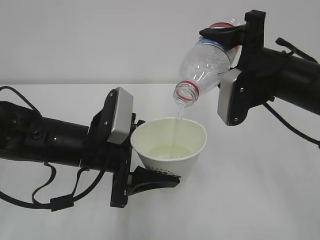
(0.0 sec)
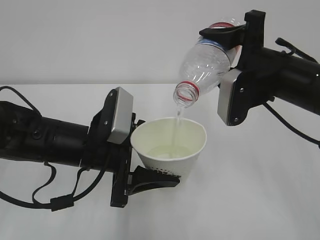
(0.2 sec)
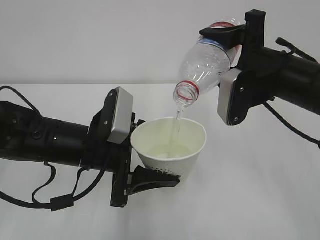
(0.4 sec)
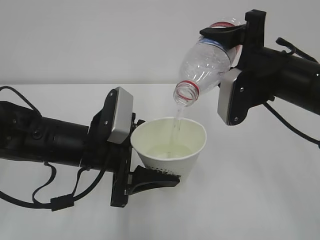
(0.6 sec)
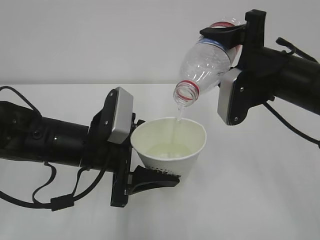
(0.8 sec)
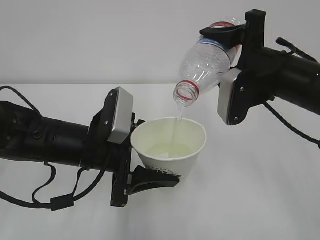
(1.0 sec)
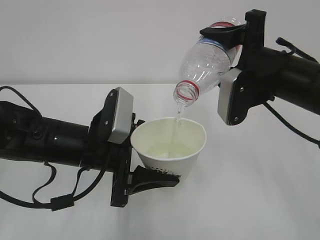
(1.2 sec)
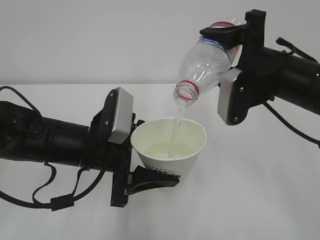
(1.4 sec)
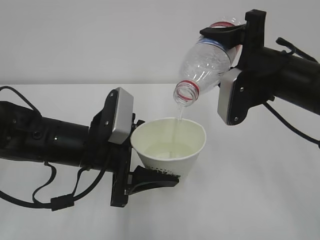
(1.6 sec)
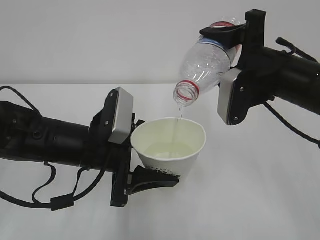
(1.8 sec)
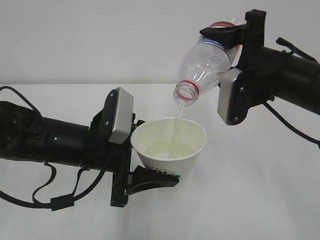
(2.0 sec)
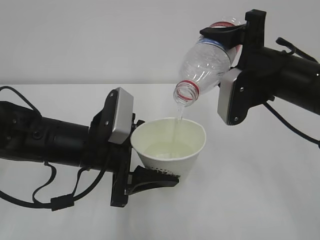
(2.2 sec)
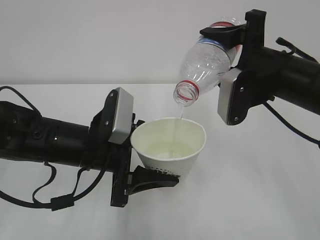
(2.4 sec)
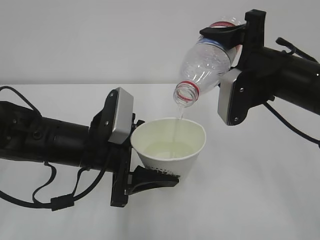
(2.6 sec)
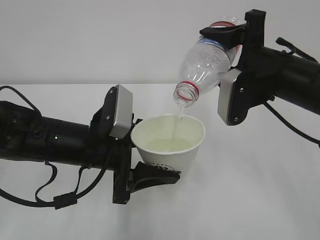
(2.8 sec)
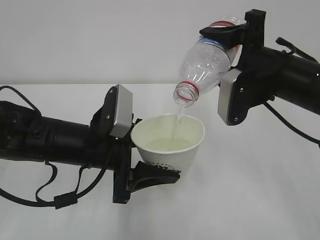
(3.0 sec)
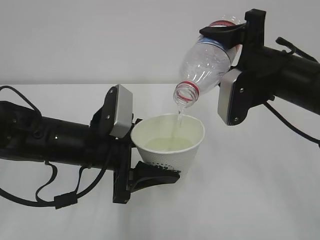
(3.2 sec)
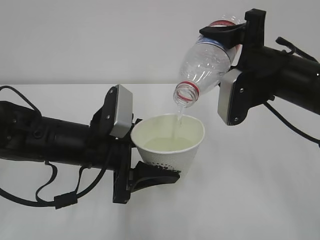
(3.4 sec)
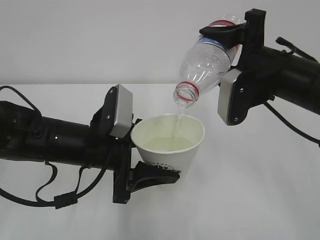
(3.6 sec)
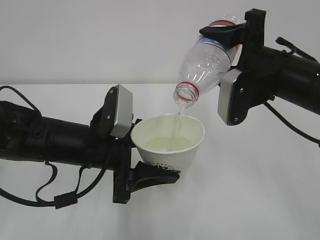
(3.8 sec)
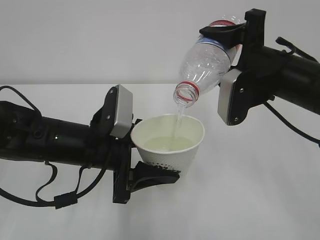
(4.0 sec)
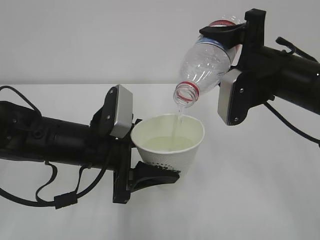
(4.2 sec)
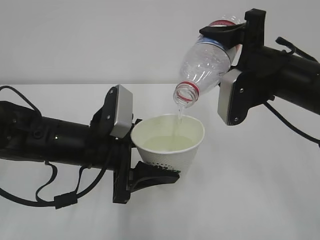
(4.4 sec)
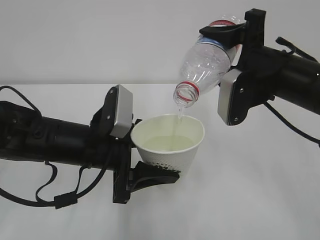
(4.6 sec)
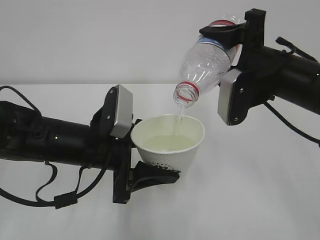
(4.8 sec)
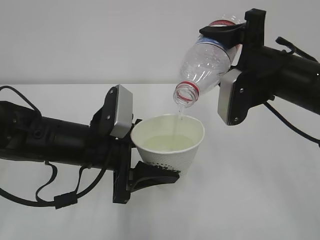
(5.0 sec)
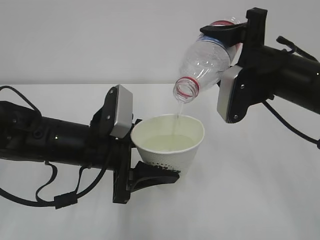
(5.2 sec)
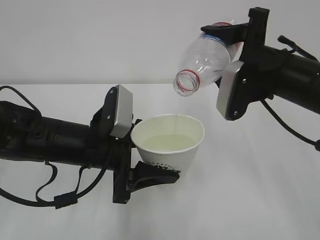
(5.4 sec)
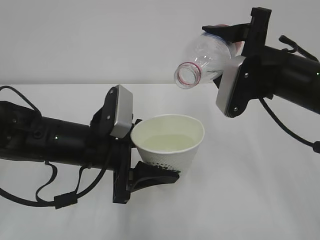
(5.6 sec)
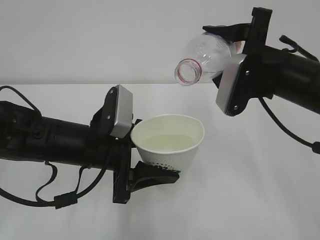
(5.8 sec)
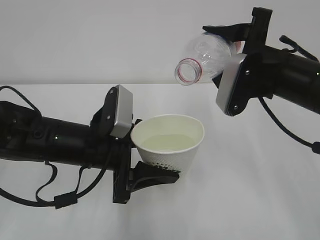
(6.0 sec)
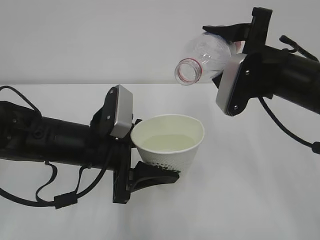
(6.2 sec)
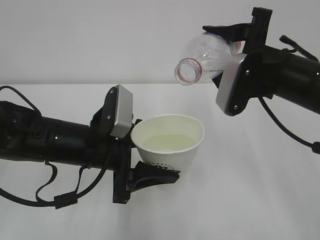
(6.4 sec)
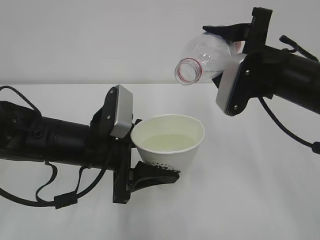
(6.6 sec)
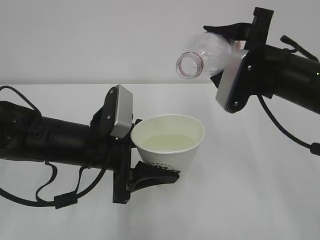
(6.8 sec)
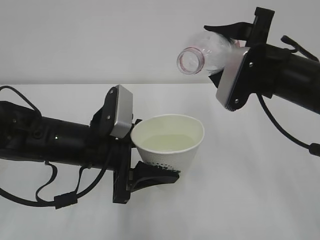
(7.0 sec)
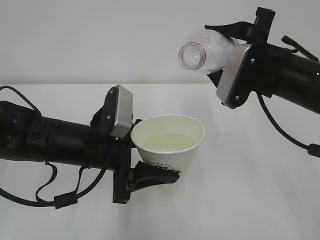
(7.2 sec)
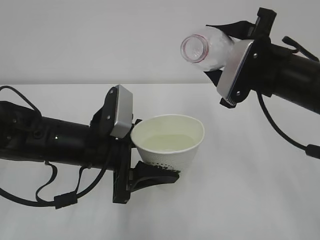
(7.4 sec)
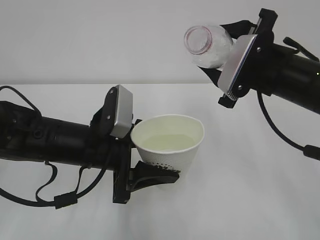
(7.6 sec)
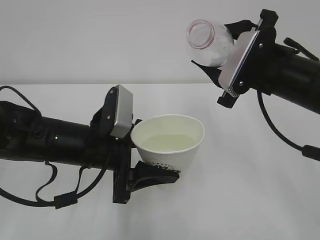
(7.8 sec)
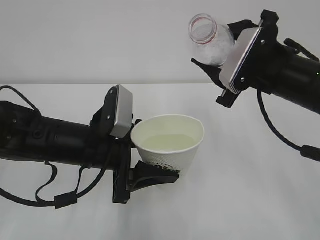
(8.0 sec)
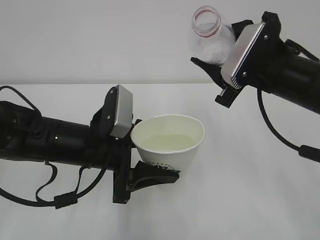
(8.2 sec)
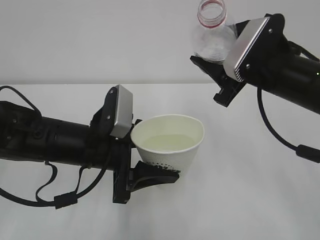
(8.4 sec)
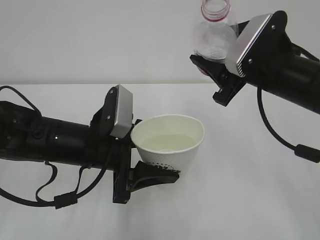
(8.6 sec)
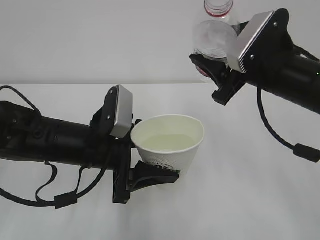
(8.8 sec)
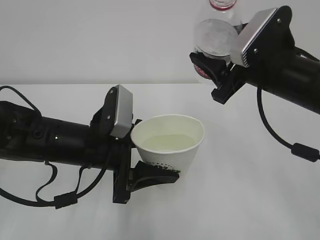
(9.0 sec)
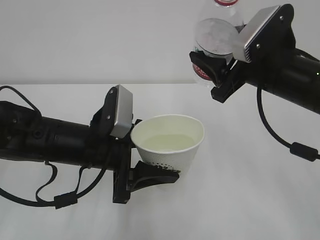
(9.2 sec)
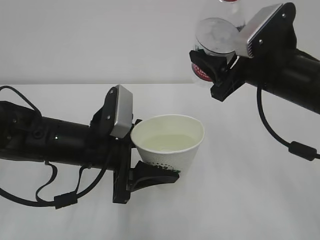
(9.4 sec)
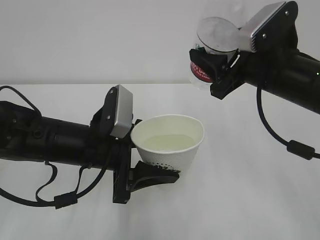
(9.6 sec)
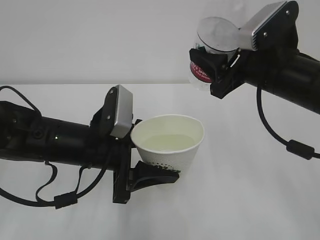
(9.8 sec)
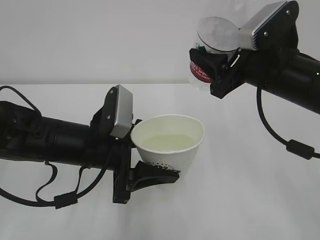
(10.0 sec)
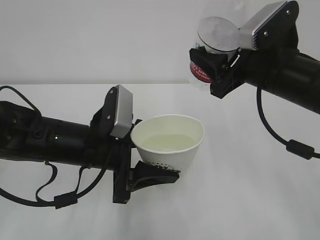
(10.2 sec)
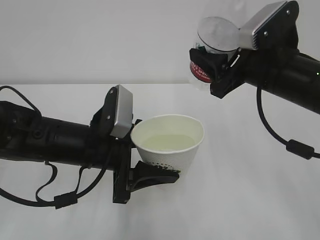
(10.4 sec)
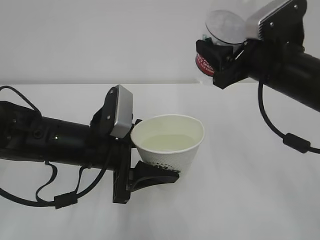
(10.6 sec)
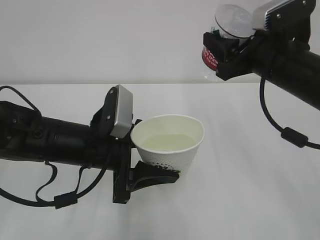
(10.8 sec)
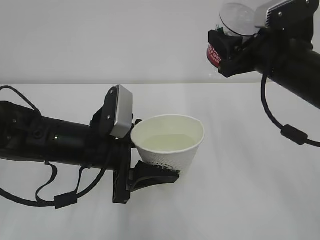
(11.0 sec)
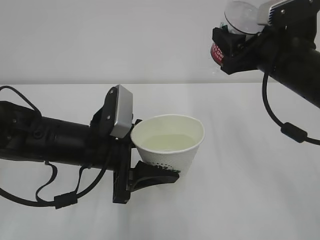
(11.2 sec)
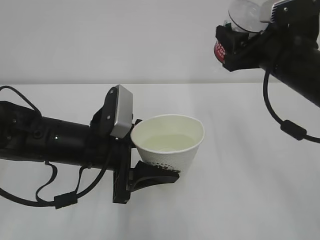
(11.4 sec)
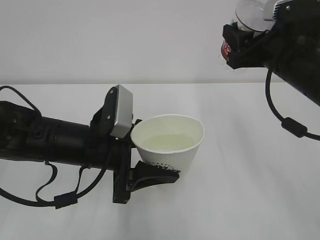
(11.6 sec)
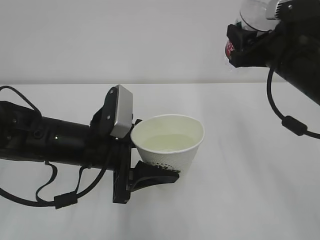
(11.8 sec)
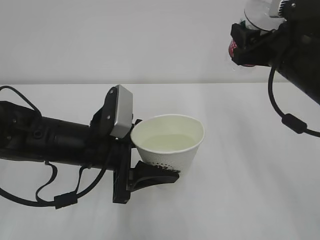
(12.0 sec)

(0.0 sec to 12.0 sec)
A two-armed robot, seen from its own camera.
0.0 sec - 3.0 sec: Both grippers stay put.
3.0 sec - 4.4 sec: Both grippers stay put.
4.4 sec - 6.0 sec: The grippers move only a little.
6.0 sec - 7.6 sec: The grippers move only a little.
9.0 sec - 10.4 sec: The grippers make only small movements.

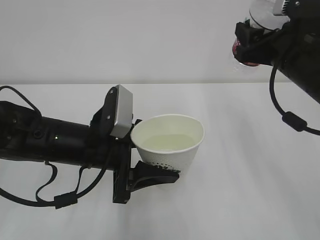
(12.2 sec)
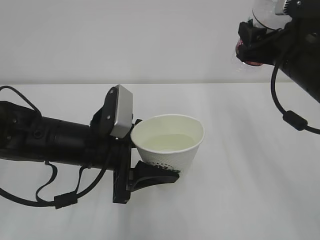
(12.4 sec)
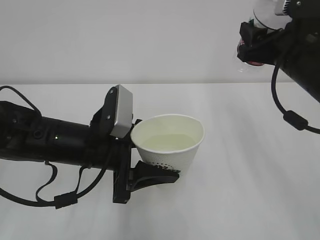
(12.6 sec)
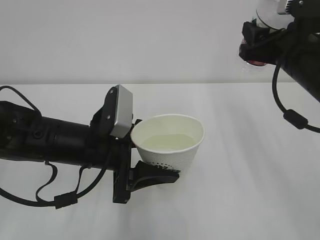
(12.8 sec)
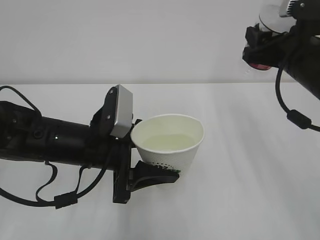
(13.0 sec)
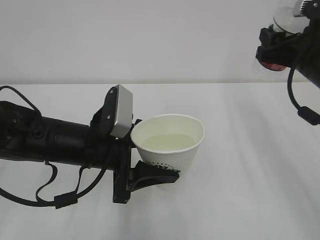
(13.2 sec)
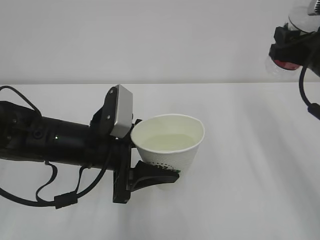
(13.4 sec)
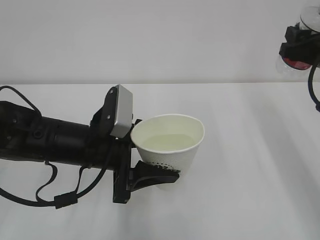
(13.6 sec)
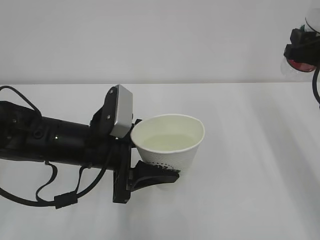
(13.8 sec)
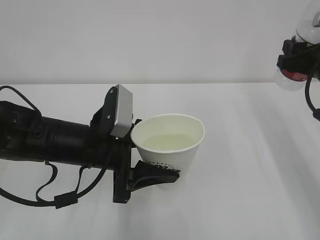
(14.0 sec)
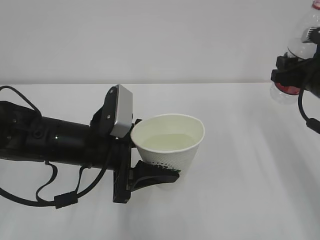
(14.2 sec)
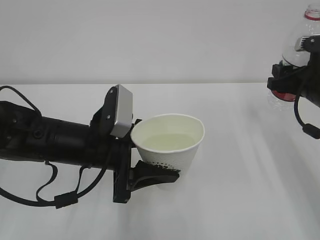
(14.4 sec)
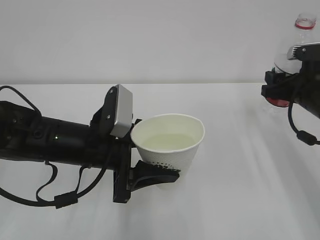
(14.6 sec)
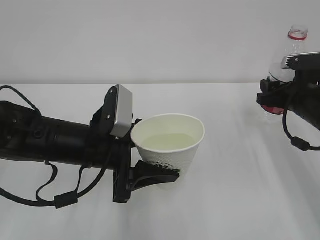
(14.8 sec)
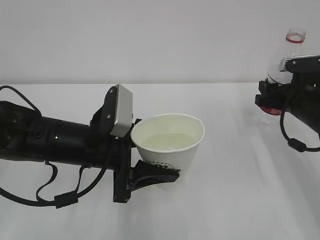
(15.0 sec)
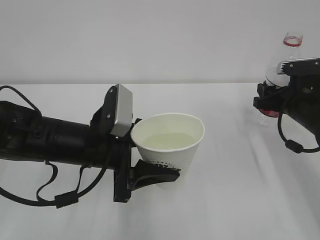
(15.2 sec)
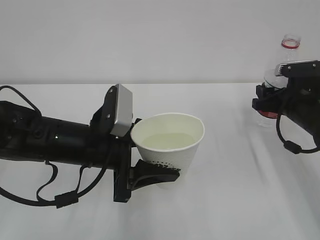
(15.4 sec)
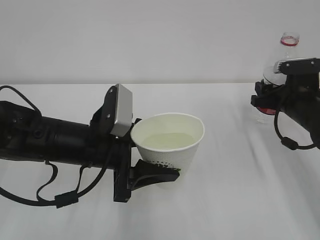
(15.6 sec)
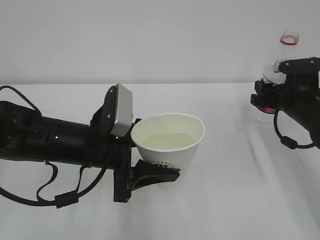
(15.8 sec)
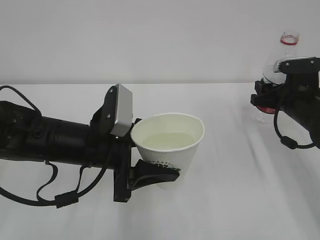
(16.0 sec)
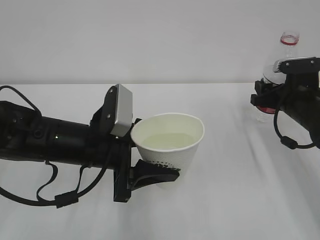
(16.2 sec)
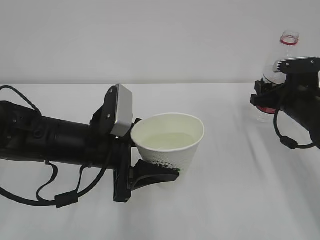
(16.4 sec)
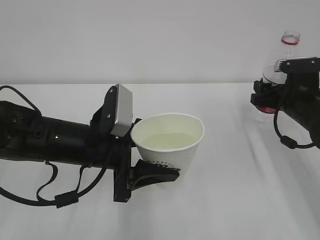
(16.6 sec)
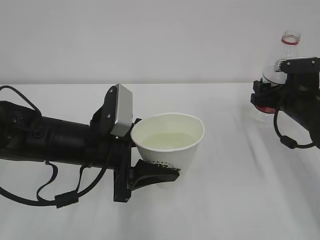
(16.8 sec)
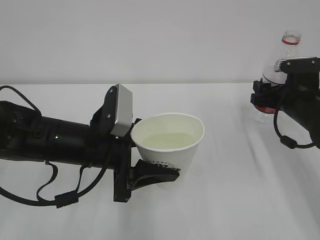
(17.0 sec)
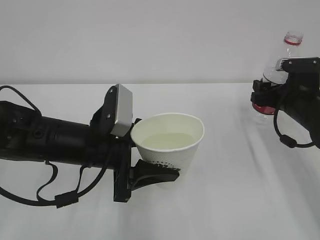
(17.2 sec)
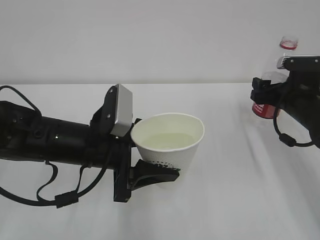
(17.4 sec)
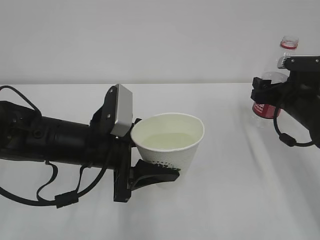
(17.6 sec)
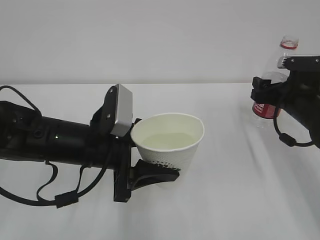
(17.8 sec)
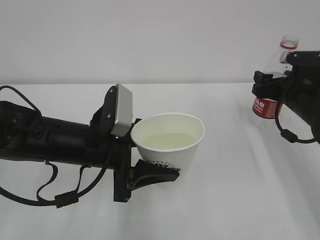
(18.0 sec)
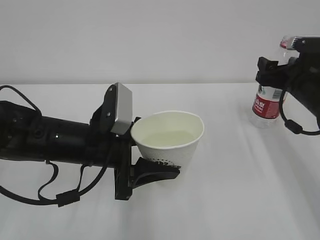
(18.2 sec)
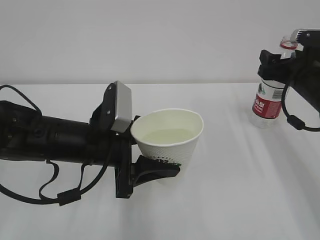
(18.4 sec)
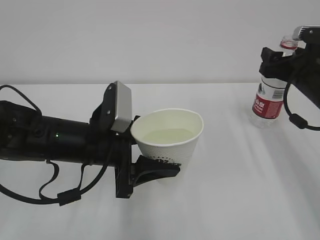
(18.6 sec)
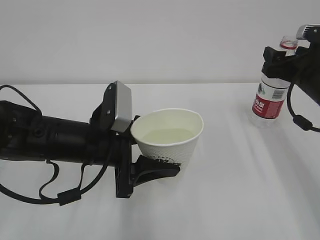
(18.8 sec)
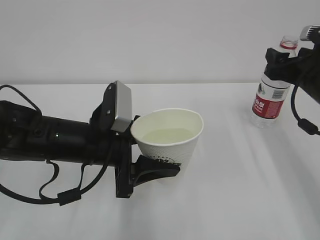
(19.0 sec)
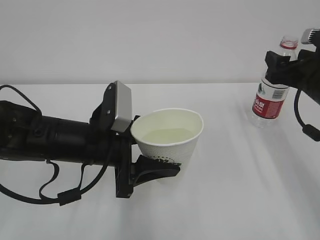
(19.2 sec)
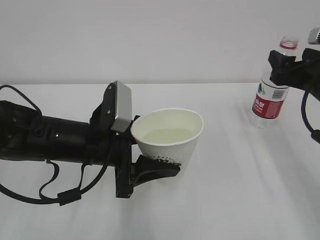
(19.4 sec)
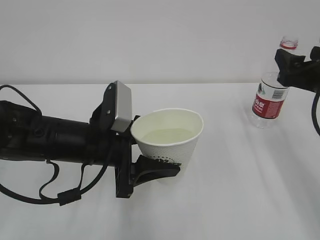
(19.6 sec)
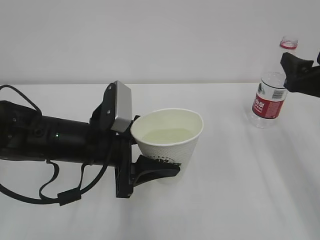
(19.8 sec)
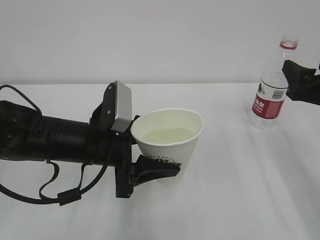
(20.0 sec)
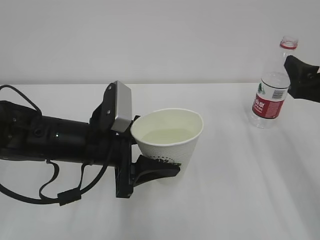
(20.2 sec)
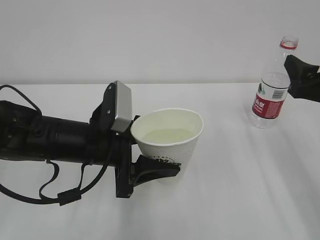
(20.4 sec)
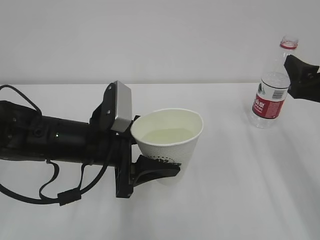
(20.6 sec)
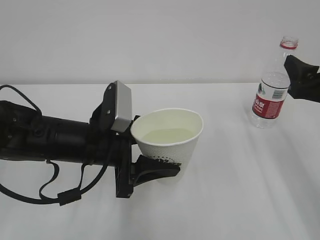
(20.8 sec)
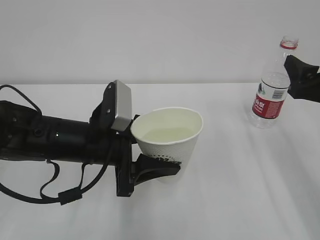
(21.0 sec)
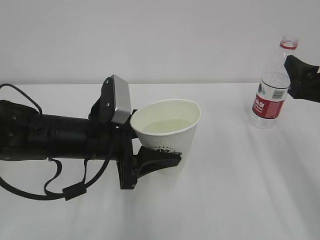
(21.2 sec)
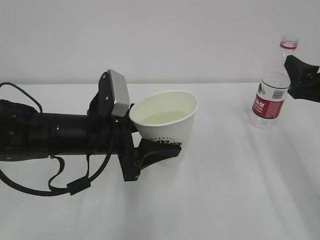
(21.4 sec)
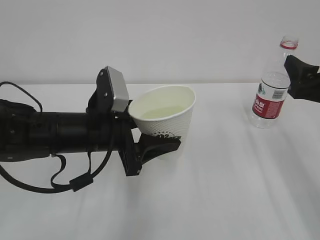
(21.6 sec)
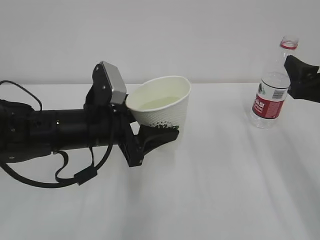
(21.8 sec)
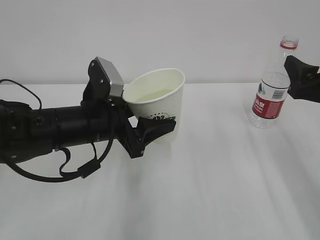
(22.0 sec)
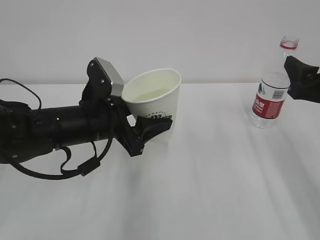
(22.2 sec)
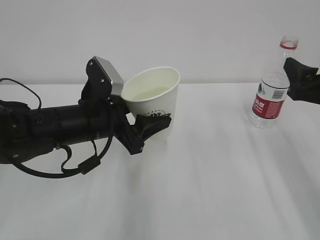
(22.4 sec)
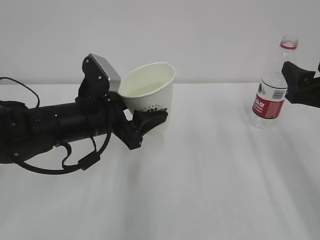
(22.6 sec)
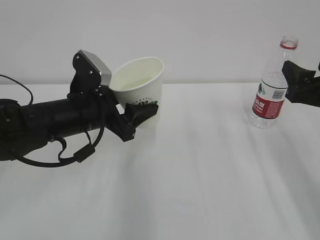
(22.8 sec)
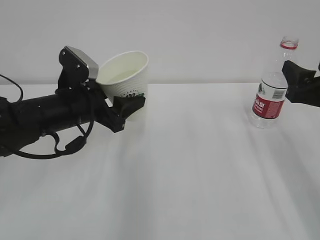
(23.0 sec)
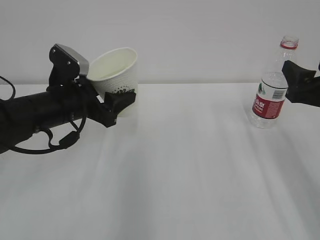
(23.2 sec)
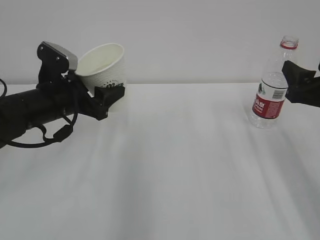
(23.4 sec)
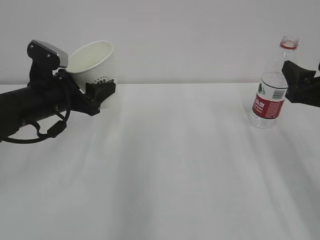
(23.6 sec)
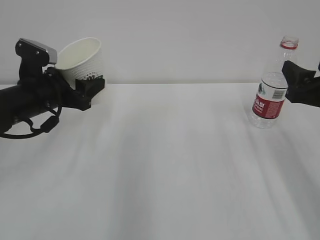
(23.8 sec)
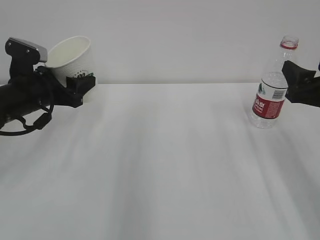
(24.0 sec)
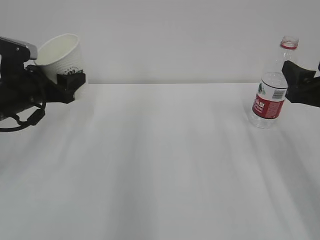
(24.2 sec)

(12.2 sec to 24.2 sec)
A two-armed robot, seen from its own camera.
12.2 sec - 13.8 sec: The right gripper shifts approximately 10 cm to the right.
13.8 sec - 15.2 sec: The right gripper heads downward, covering approximately 10 cm.
15.2 sec - 16.6 sec: The grippers stay close to where they were, moving slightly.
16.6 sec - 18.2 sec: The right gripper opens.
18.2 sec - 19.8 sec: The right gripper moves backward and upward, about 10 cm.
19.8 sec - 21.2 sec: The grippers make only small movements.
22.6 sec - 24.2 sec: The left gripper shifts approximately 15 cm to the left and forward.
